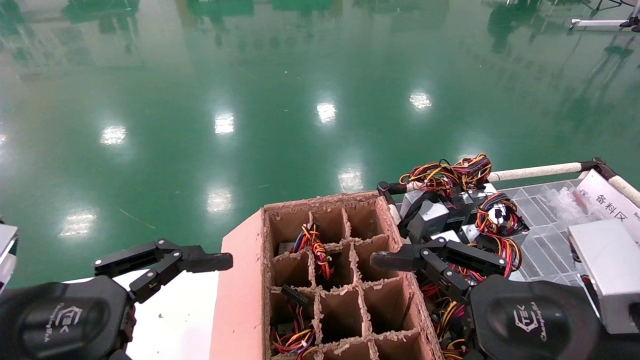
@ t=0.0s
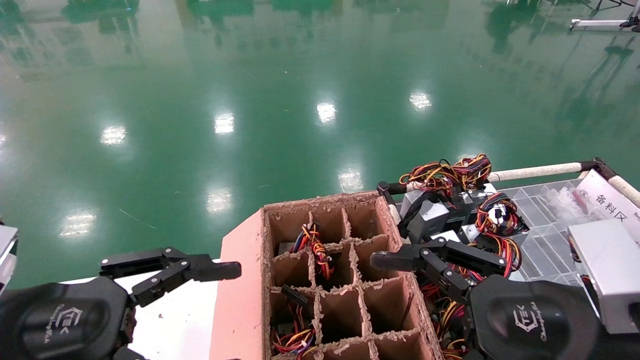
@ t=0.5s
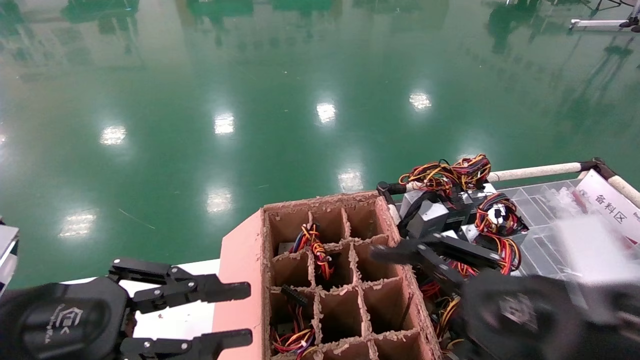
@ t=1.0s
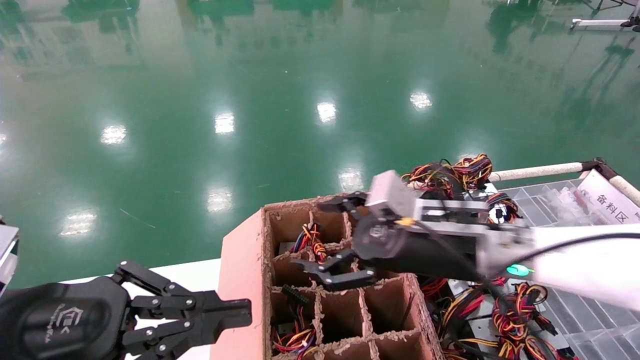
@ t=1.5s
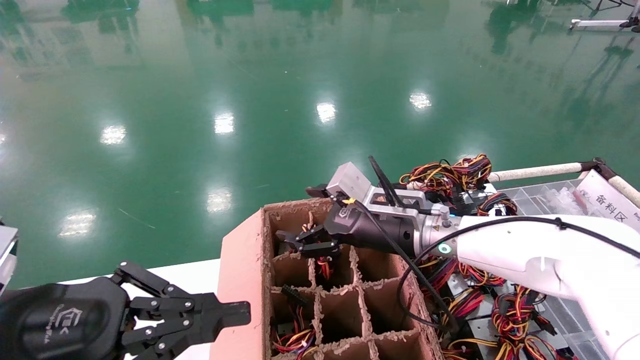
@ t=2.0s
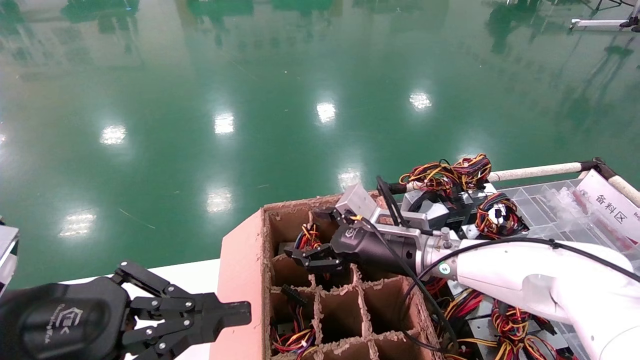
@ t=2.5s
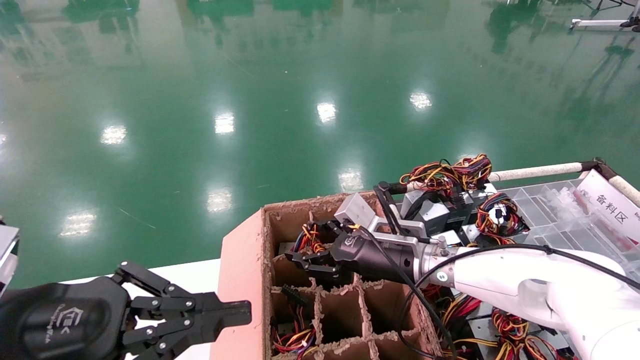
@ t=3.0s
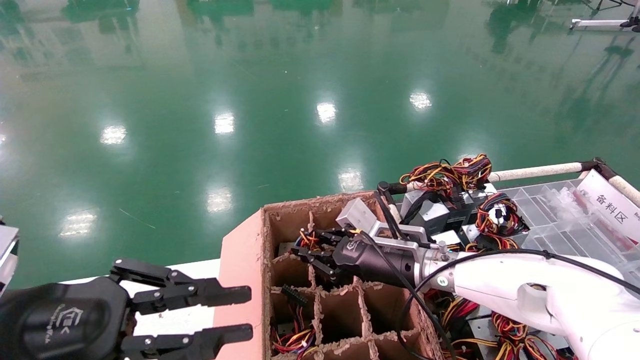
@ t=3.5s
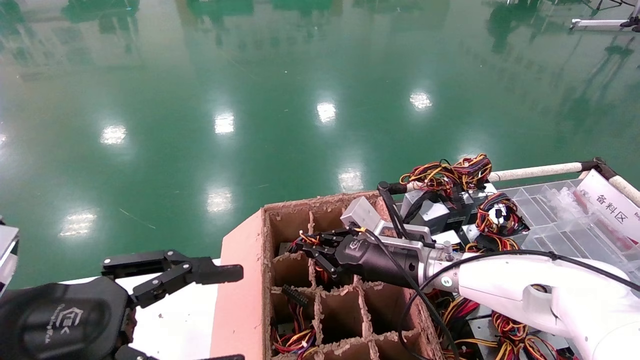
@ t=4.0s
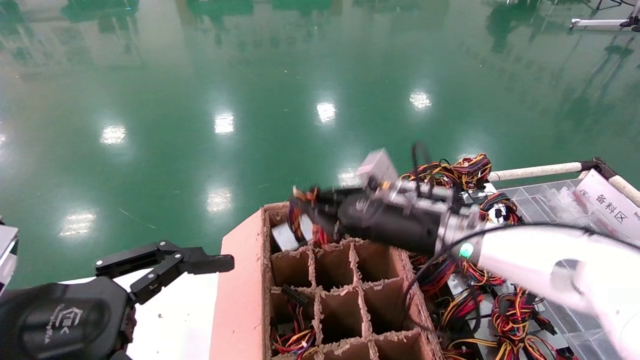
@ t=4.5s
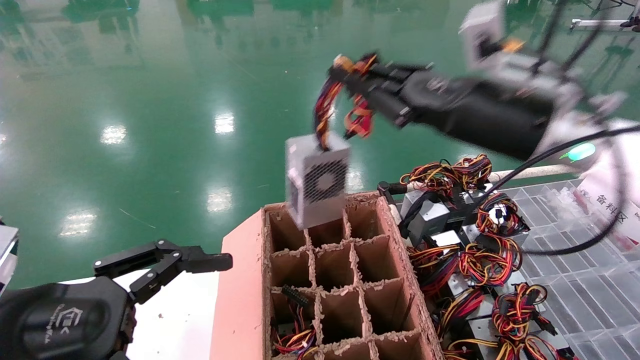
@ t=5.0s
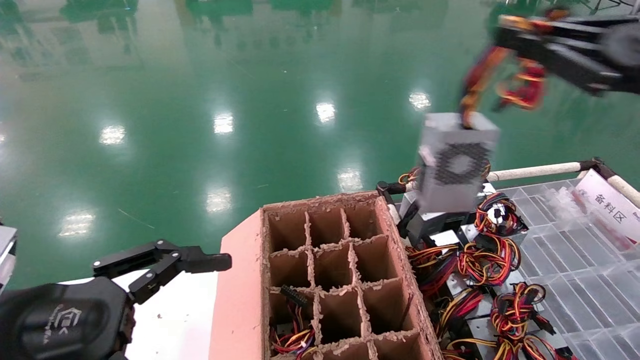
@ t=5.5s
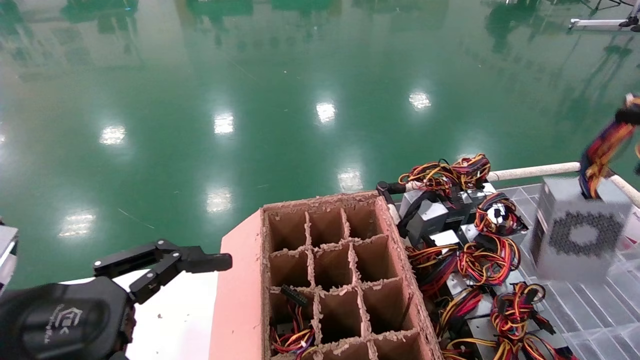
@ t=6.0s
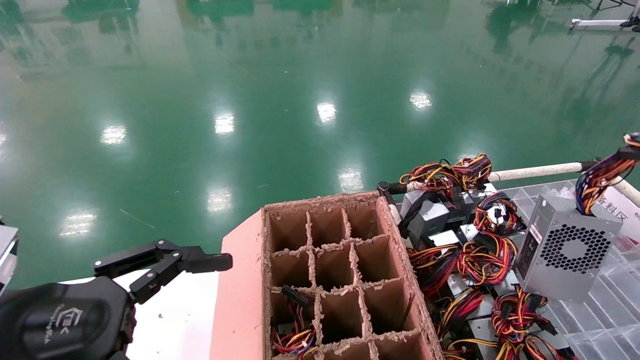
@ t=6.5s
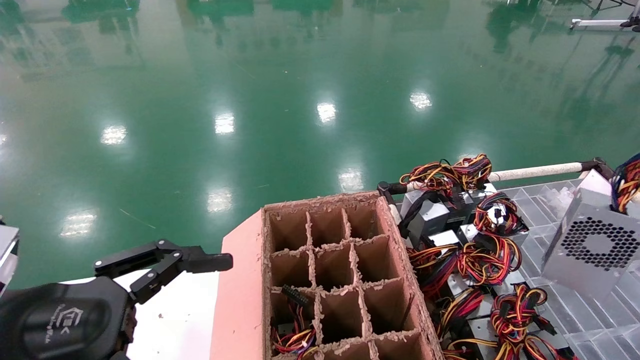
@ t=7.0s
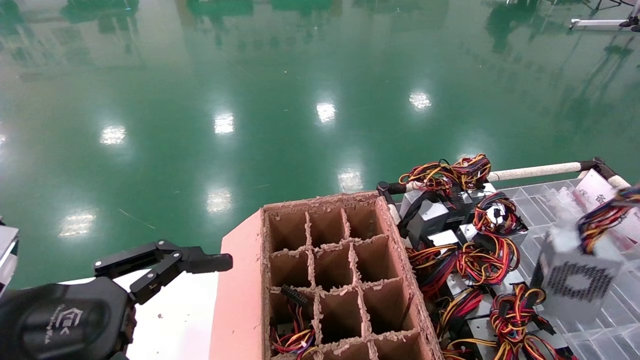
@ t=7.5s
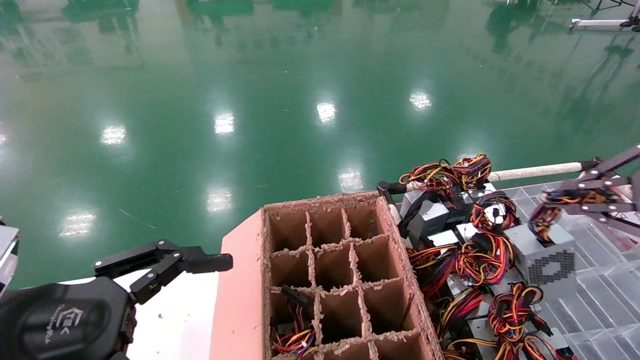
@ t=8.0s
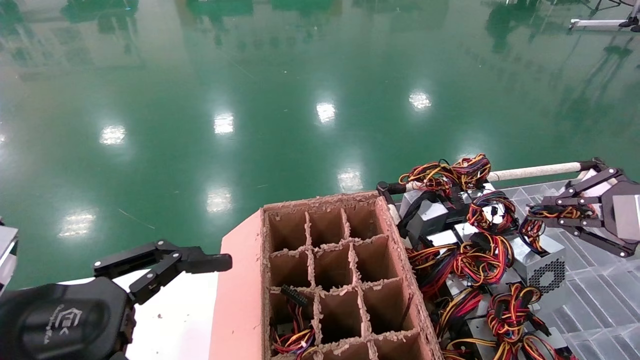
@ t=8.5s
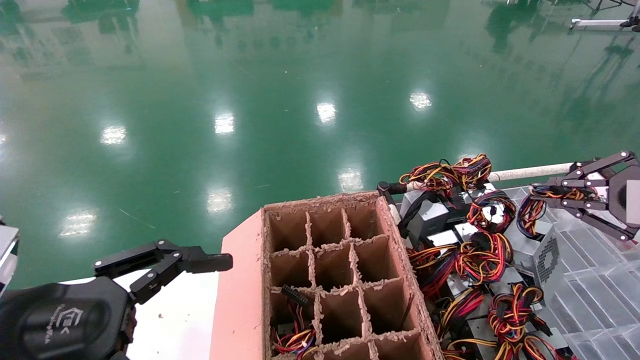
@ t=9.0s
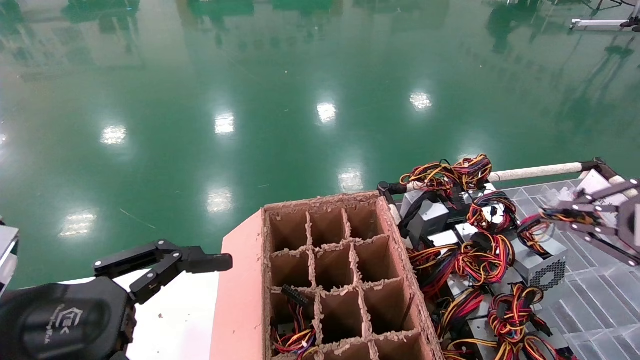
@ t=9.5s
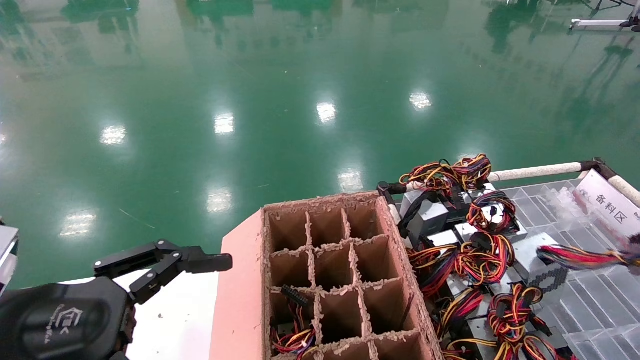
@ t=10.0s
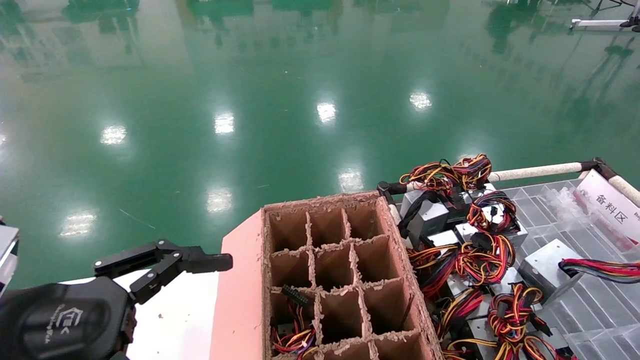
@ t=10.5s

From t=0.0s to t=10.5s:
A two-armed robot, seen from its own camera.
Step, from t=2.0s to t=4.0s: Grab and lift the power supply from the large box.
From t=0.0s to t=2.0s: The left gripper closes up; the right gripper travels forward and to the left by about 25 cm.
From t=2.0s to t=4.0s: The right gripper moves downward, about 5 cm, and closes its fingers. The left gripper opens.
From t=4.0s to t=6.5s: The right gripper heads to the right, backward and upward, covering roughly 50 cm. The left gripper opens up.
From t=6.5s to t=8.5s: The right gripper shifts about 10 cm forward and downward.
From t=8.5s to t=10.5s: The right gripper heads to the right, backward and downward, covering roughly 15 cm.

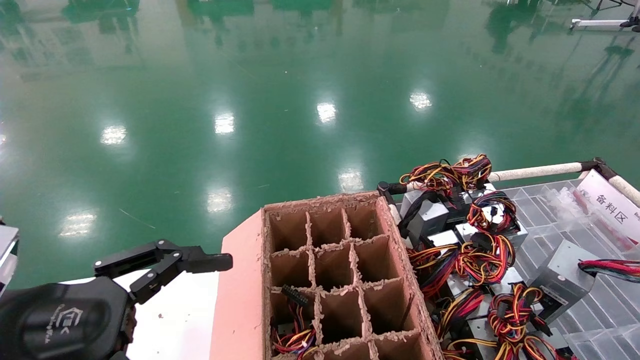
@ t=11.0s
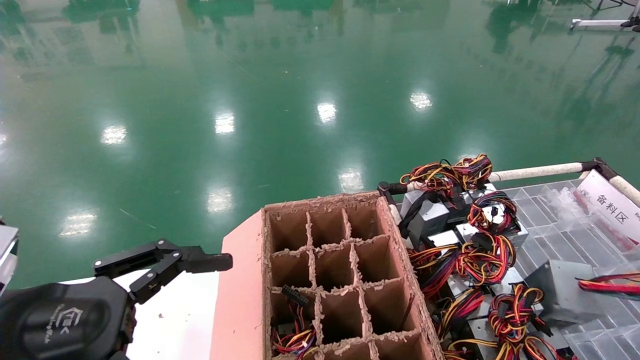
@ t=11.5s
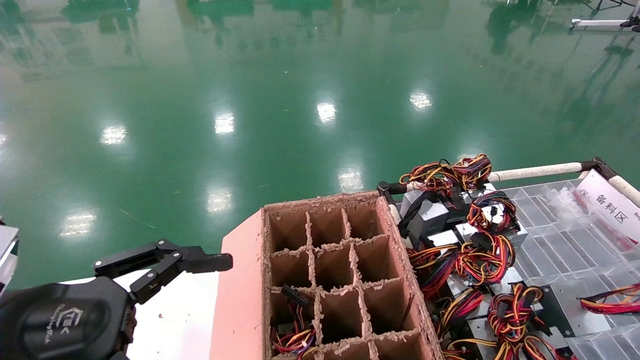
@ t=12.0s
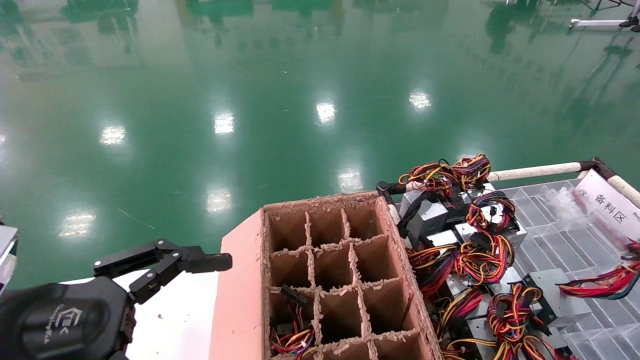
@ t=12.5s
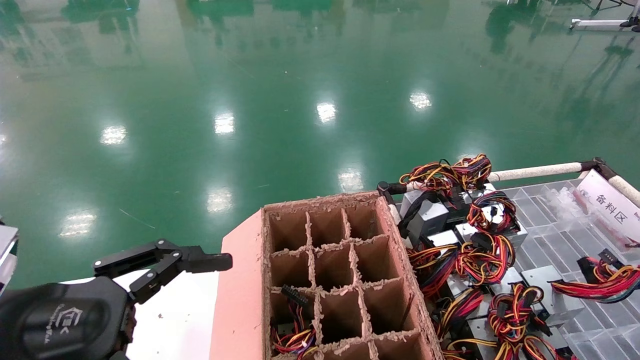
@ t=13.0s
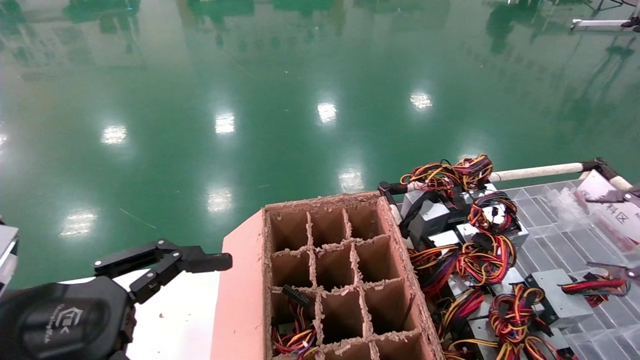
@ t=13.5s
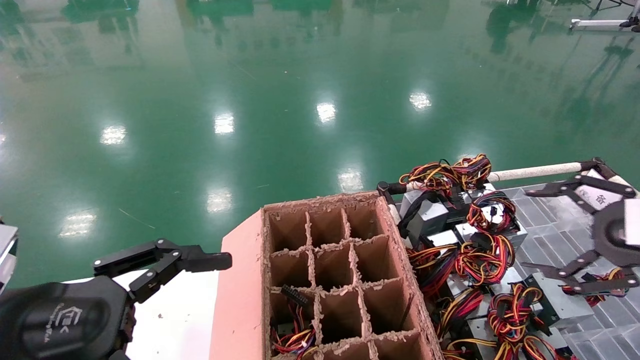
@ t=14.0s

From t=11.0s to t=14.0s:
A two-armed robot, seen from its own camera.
From t=11.0s to t=12.5s: There are only small adjustments of the grippers.
From t=12.5s to t=14.0s: The right gripper is displaced to the left by about 10 cm, and opens its fingers.
